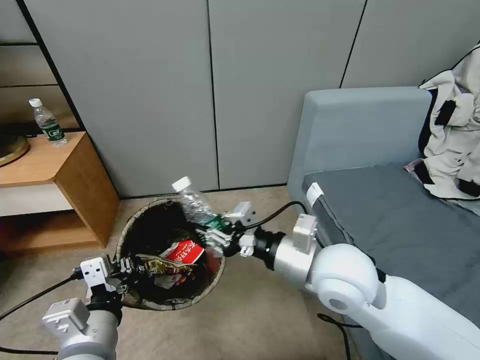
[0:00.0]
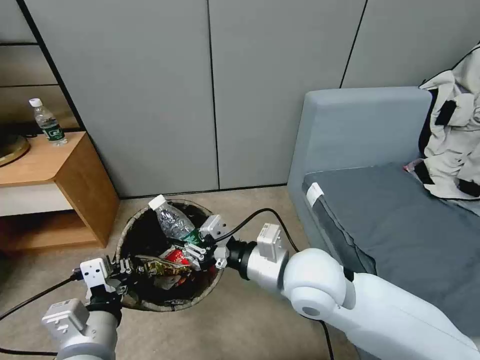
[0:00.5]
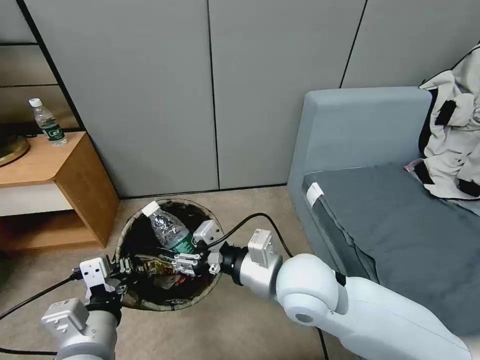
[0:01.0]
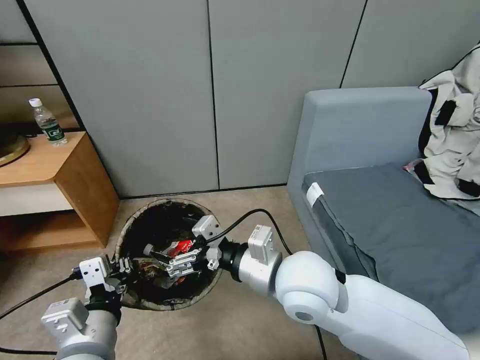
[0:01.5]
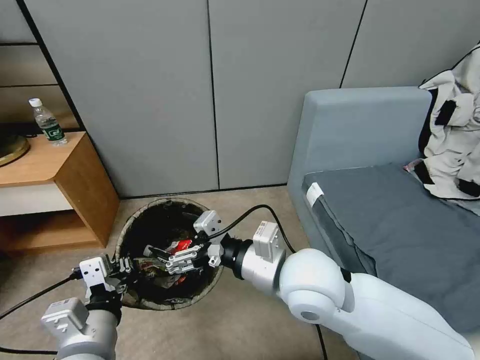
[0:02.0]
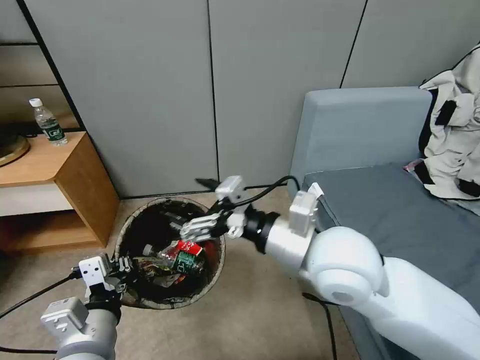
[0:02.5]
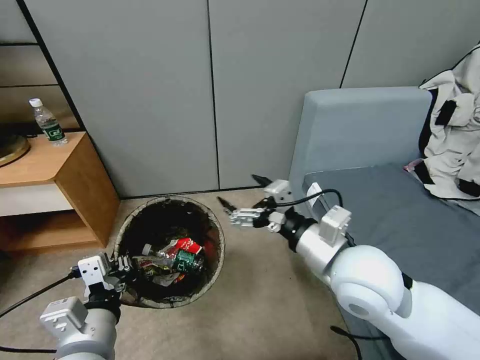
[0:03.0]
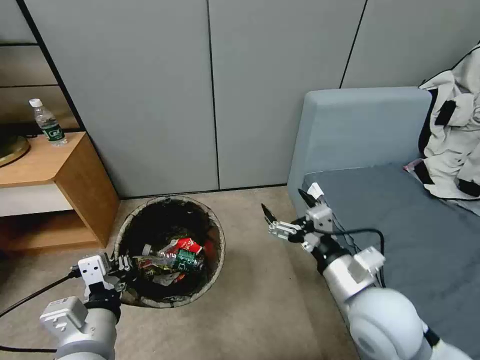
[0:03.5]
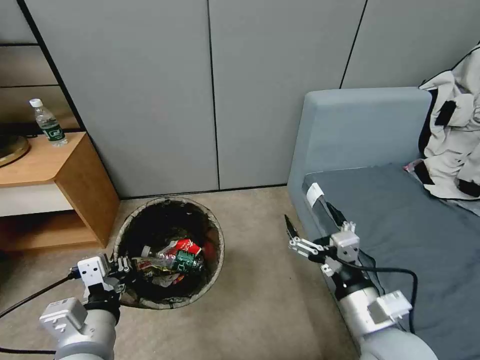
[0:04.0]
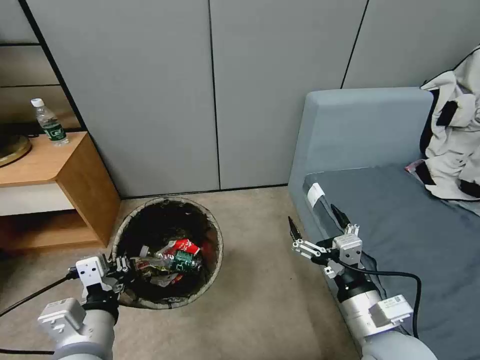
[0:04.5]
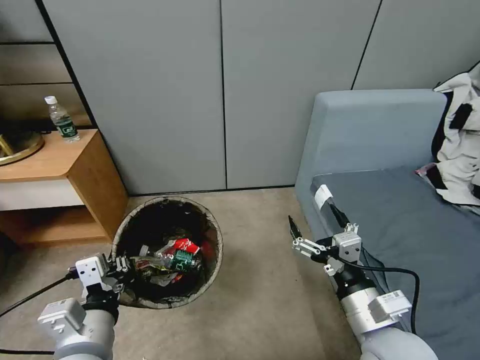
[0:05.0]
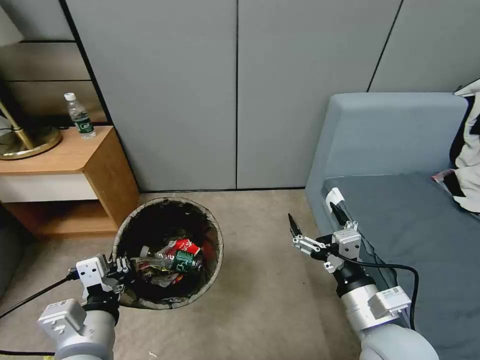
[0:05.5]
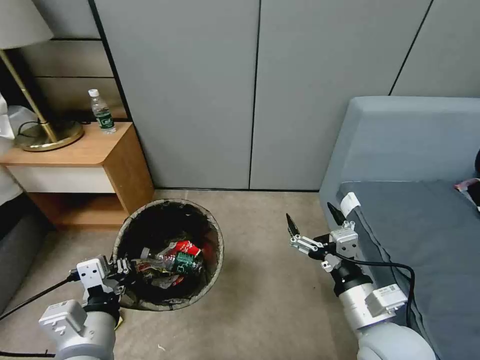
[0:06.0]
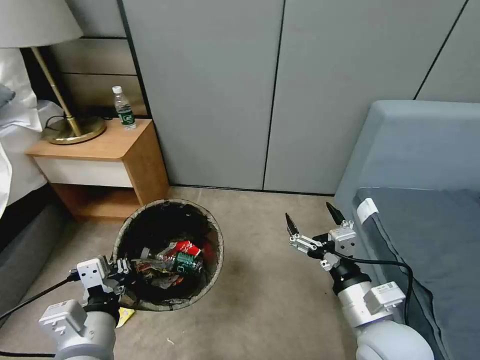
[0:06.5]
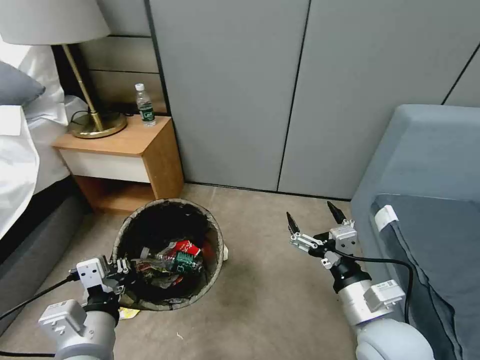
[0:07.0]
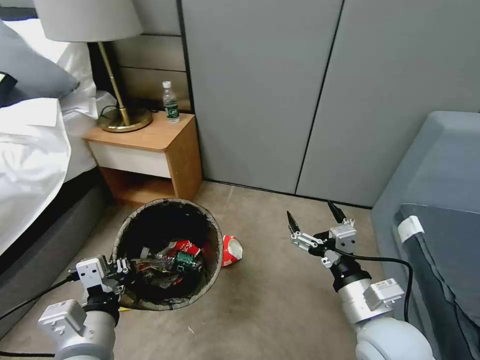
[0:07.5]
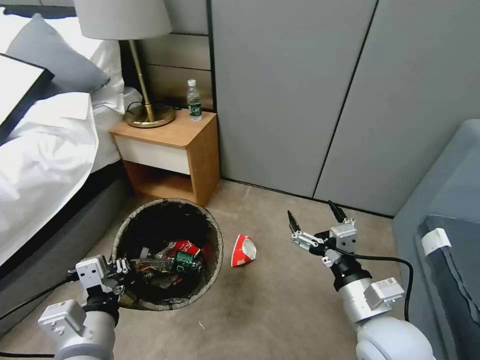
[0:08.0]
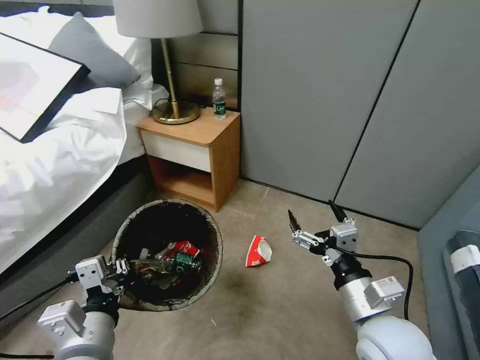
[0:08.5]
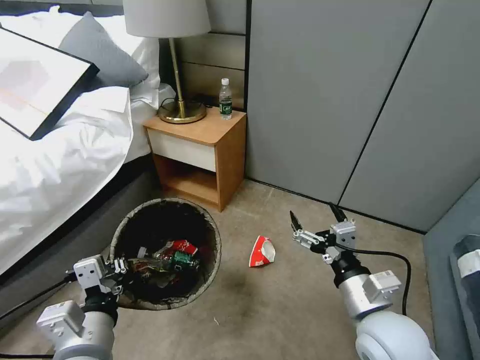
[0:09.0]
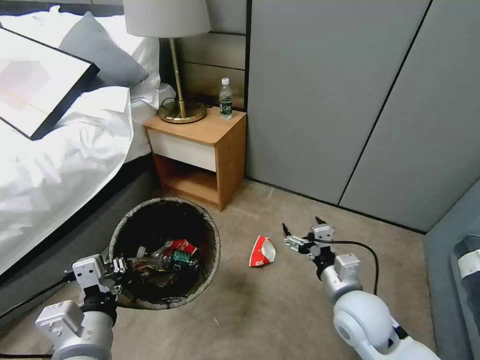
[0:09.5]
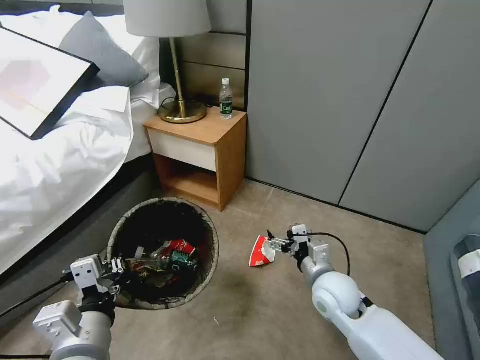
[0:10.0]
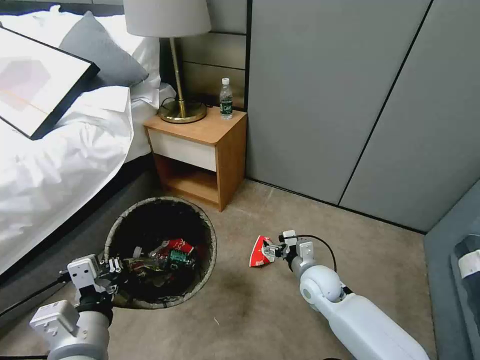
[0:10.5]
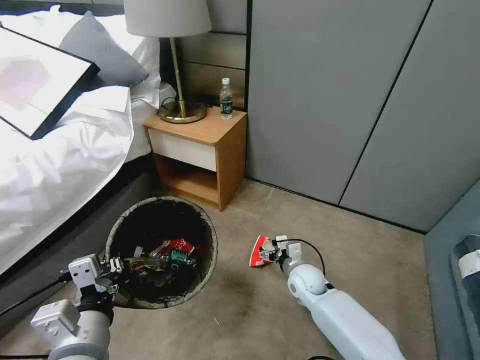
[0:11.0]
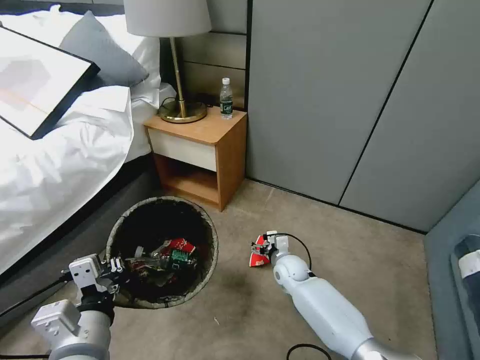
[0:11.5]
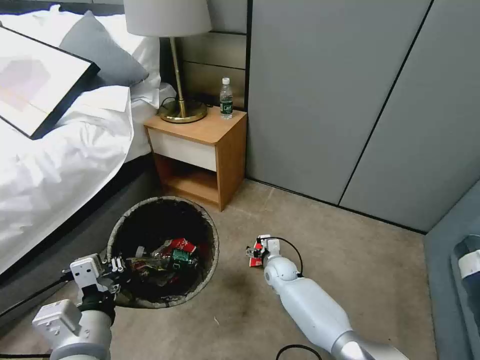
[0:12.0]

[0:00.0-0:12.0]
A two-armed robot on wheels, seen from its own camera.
Task of the whole recording: Pick up the trash bin, then pick up the garbage from the floor and place it into the trash bin.
0:00.0 to 0:02.0: The right gripper heads to the left, covering some 5 cm, and opens up.
0:02.0 to 0:04.0: The right gripper travels to the right, backward and downward by roughly 15 cm.
0:08.0 to 0:10.0: The right gripper heads forward and downward, covering approximately 15 cm.
0:10.0 to 0:12.0: The right gripper moves downward, forward and to the left, approximately 20 cm.

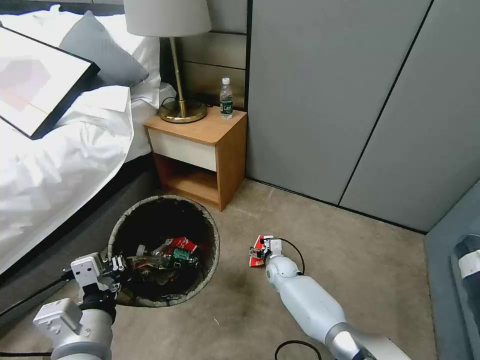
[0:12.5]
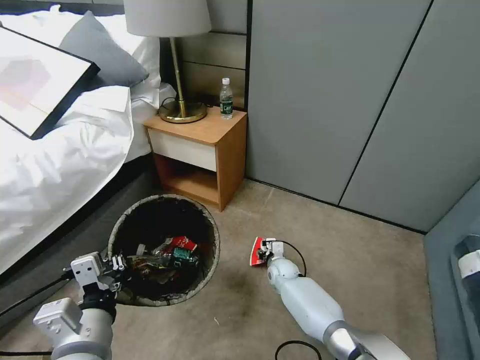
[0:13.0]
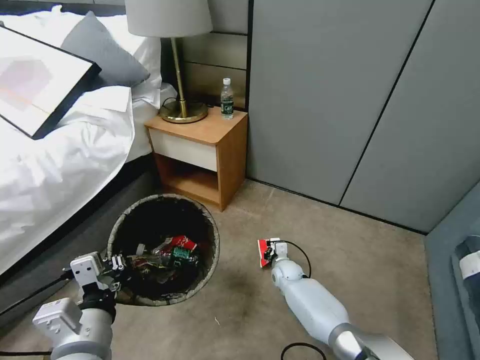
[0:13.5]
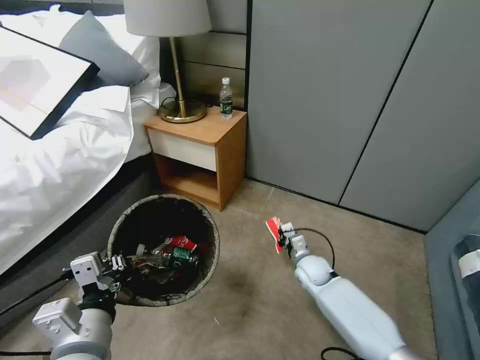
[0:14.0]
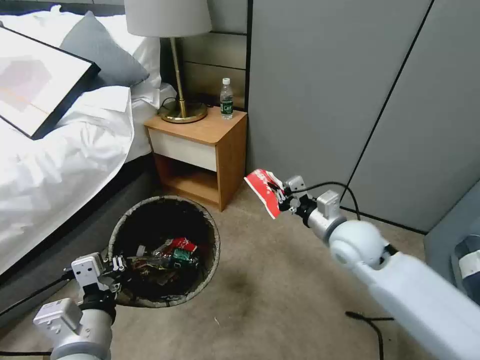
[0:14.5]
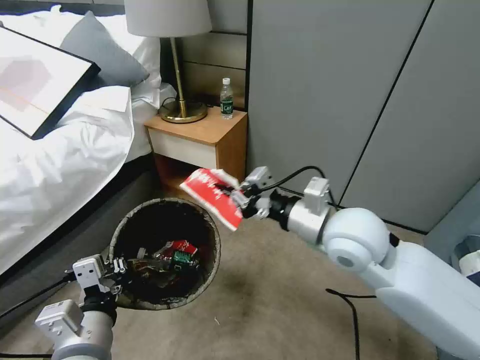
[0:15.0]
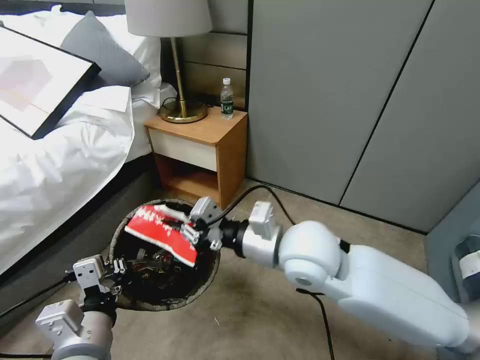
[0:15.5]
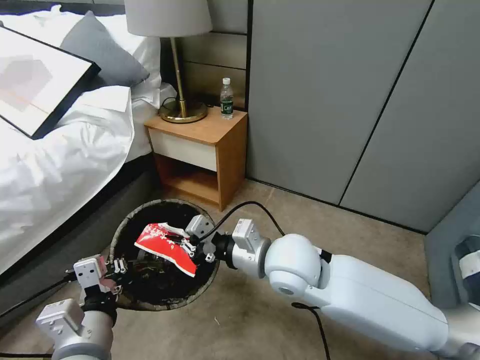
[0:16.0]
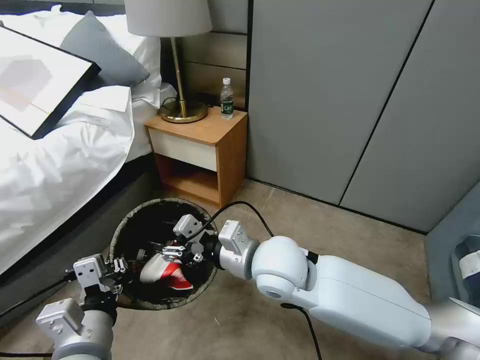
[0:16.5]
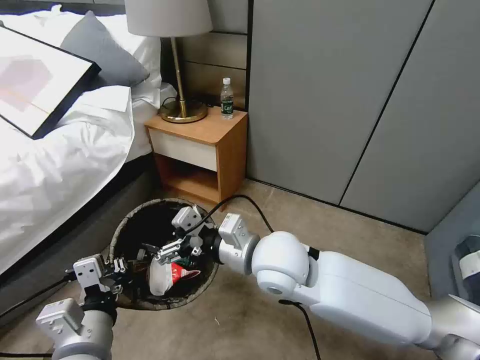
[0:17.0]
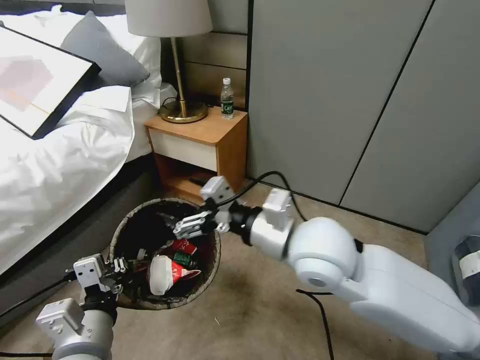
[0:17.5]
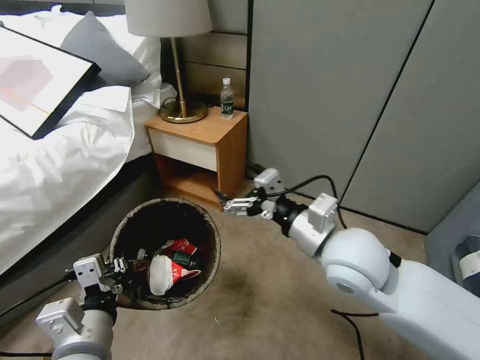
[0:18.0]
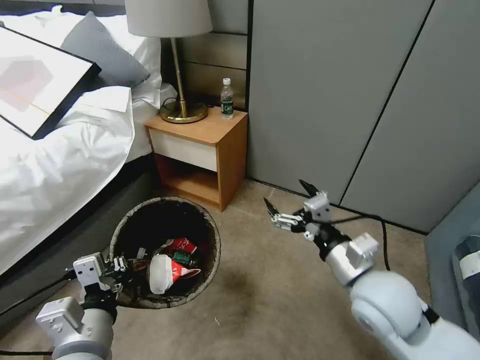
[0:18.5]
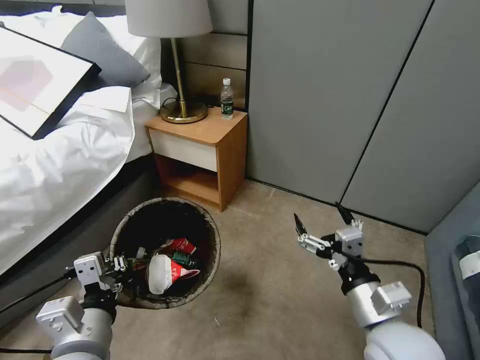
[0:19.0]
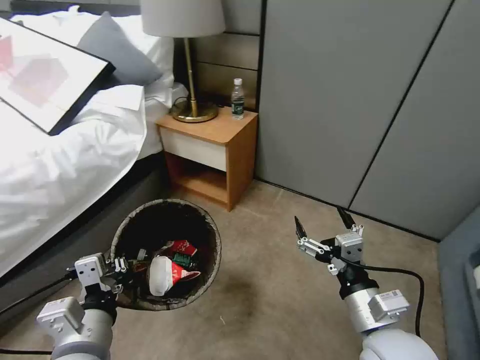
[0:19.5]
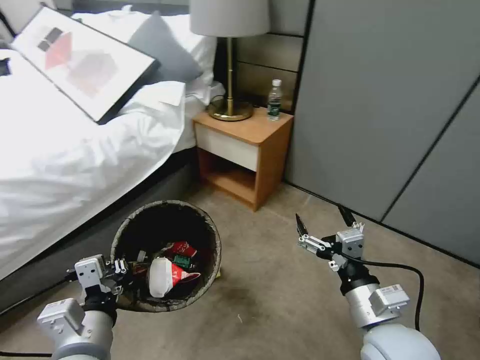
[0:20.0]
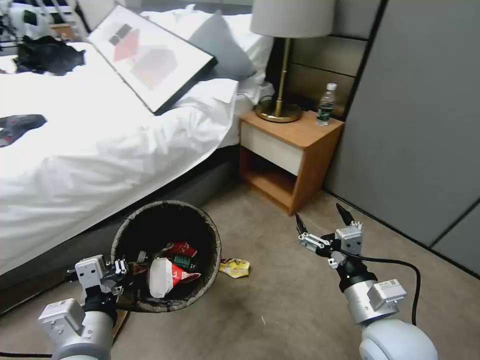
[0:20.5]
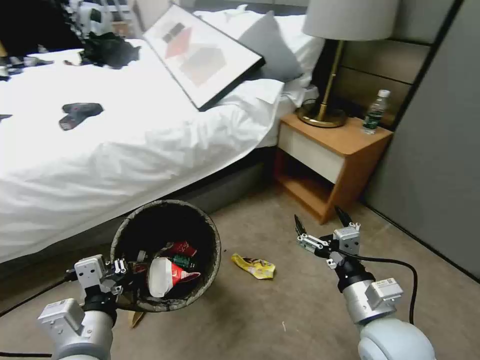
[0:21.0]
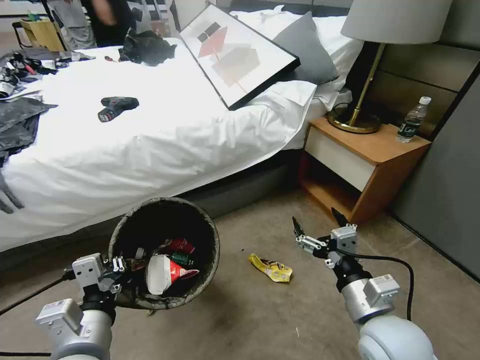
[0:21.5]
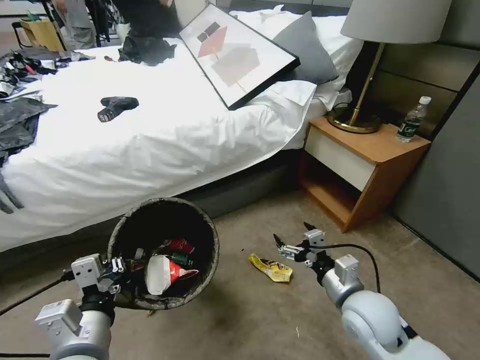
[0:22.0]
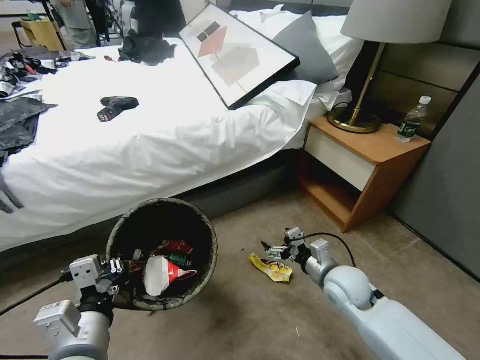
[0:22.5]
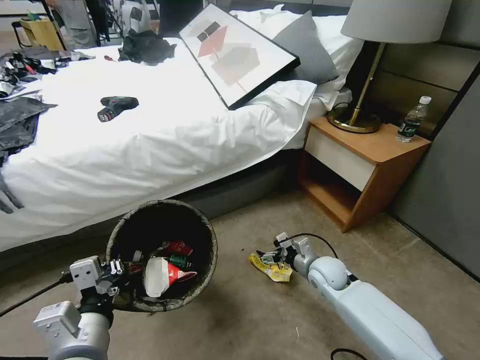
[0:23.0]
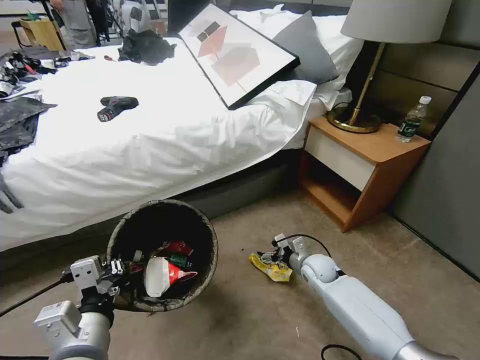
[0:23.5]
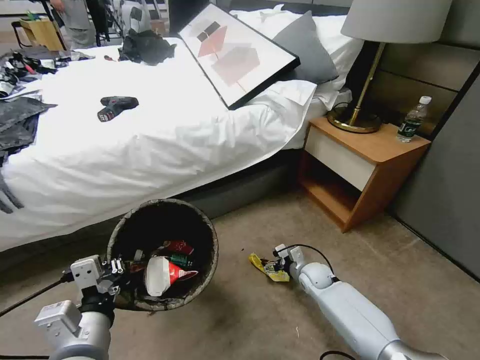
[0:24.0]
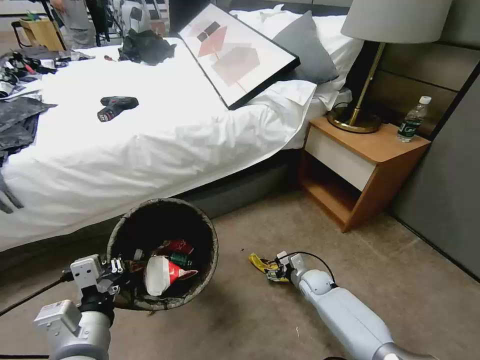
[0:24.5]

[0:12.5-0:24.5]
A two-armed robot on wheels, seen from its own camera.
Task of the whole recording: Pick up the trash bin, then pick up the garbage from the floor and place it into the trash bin.
0:12.5 to 0:14.5: The right gripper heads upward, covering about 30 cm, and closes up.
0:14.5 to 0:16.5: The right gripper goes approximately 20 cm to the left and backward, and opens up.
0:16.5 to 0:18.5: The right gripper travels to the right by about 15 cm, and opens.
0:18.5 to 0:20.5: The right gripper moves backward, about 5 cm.
0:20.5 to 0:22.5: The right gripper is displaced forward and downward by roughly 20 cm.
0:22.5 to 0:24.5: The right gripper travels downward and forward by roughly 20 cm.

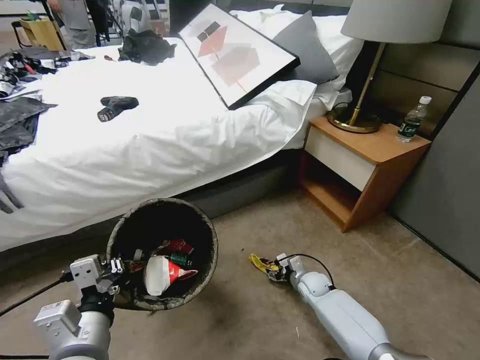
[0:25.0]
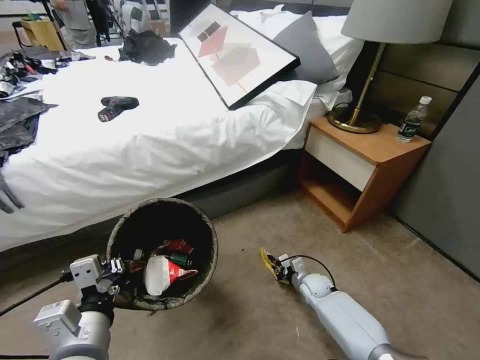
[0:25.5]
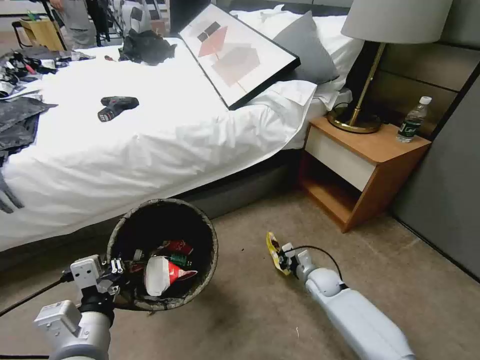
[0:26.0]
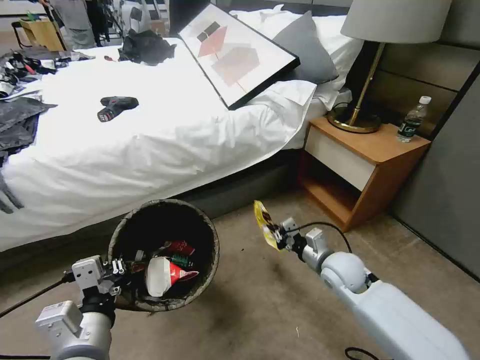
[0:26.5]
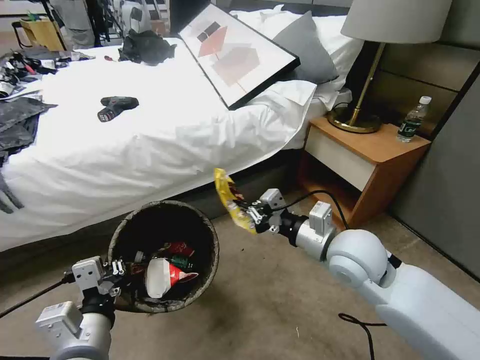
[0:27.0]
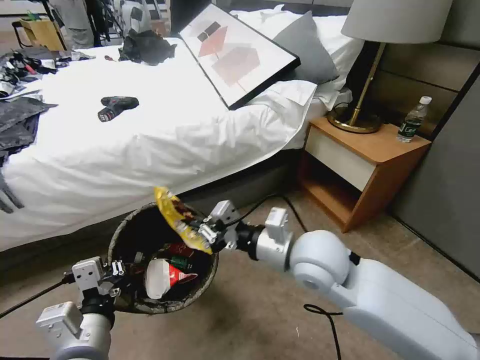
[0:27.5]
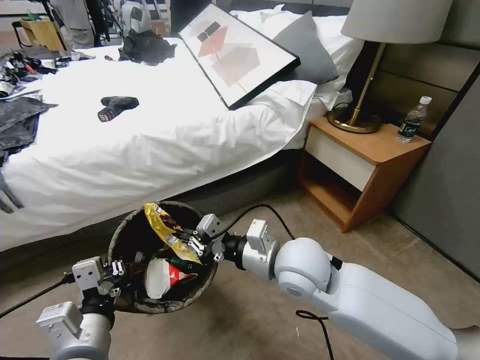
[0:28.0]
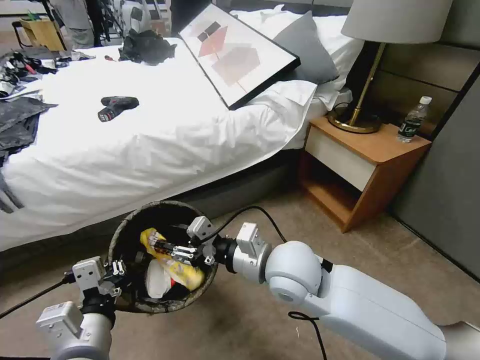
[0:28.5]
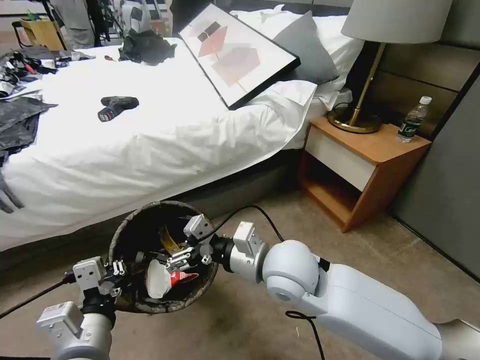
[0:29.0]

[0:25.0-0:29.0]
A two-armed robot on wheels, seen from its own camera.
Task of the whole recording: Pick up the trash bin, then pick up the garbage from the floor and place it into the trash bin.
0:25.0 to 0:27.0: The right gripper travels upward by some 35 cm, and closes its fingers.
0:27.0 to 0:29.0: The right gripper heads to the left, covering about 10 cm, and opens.
